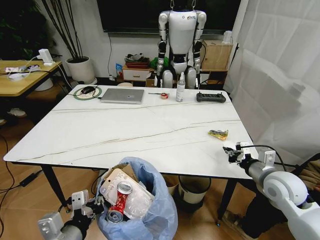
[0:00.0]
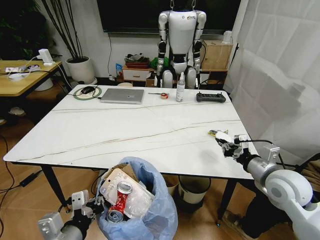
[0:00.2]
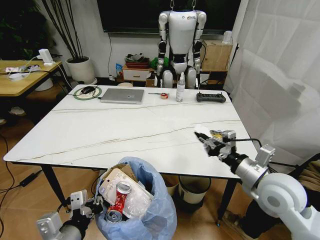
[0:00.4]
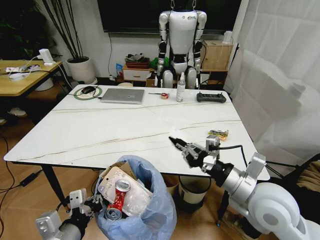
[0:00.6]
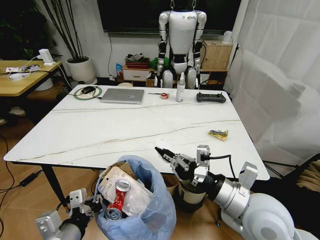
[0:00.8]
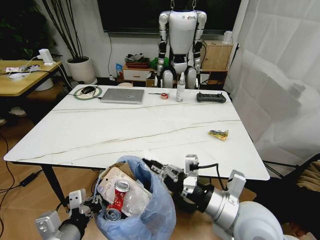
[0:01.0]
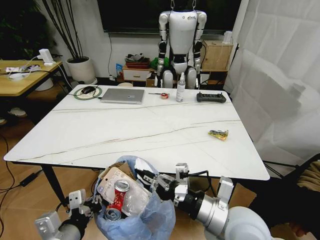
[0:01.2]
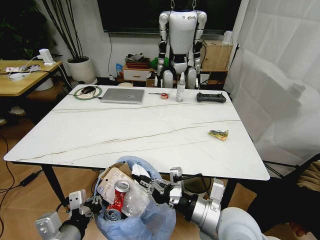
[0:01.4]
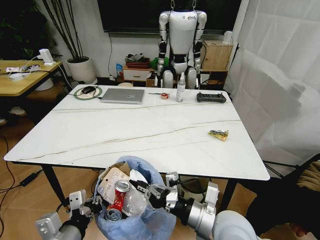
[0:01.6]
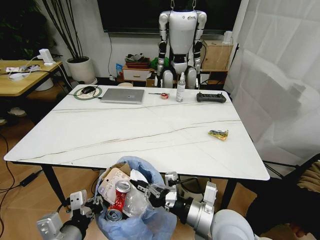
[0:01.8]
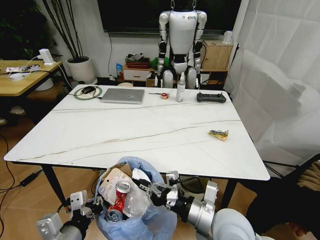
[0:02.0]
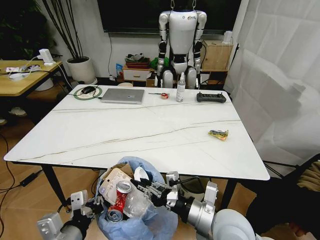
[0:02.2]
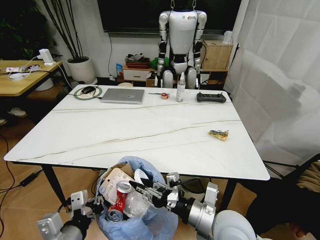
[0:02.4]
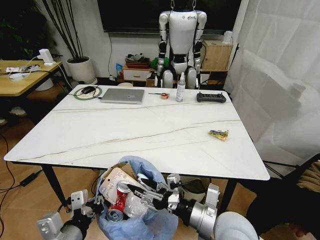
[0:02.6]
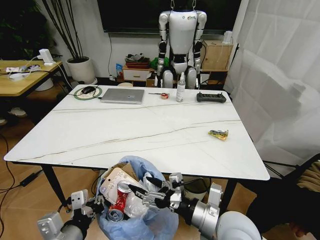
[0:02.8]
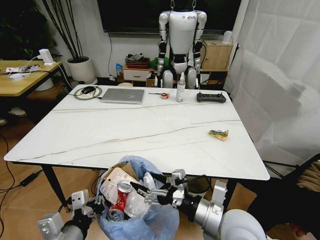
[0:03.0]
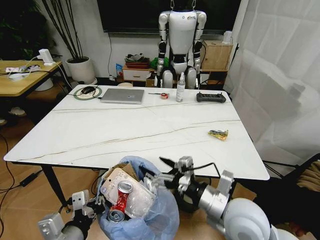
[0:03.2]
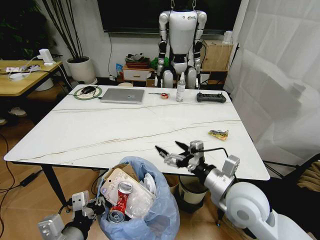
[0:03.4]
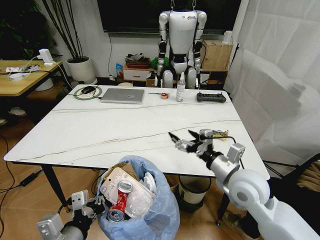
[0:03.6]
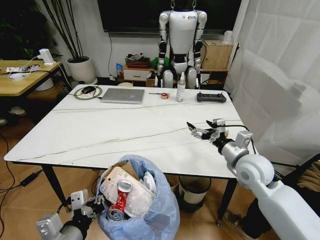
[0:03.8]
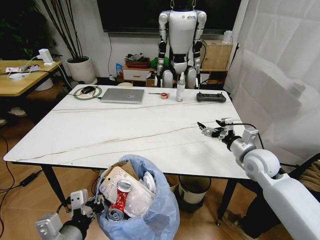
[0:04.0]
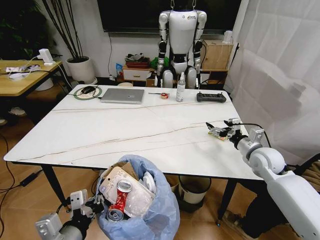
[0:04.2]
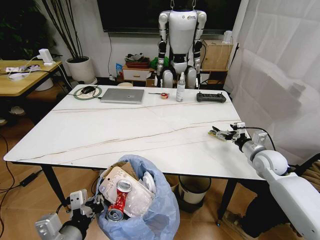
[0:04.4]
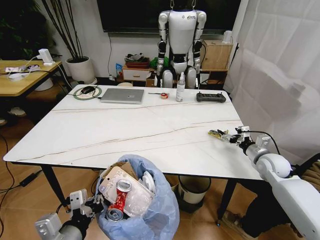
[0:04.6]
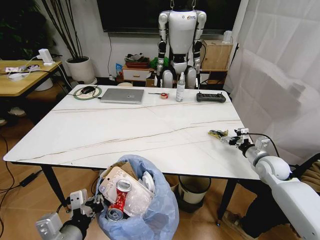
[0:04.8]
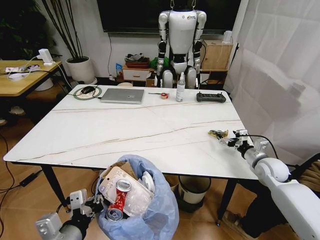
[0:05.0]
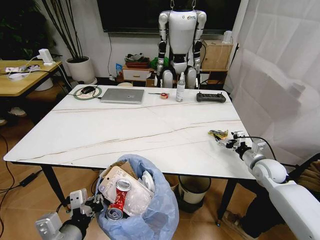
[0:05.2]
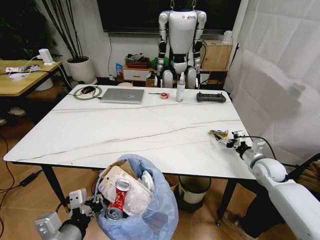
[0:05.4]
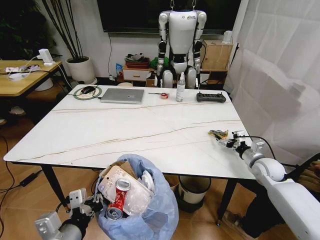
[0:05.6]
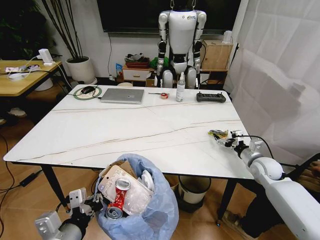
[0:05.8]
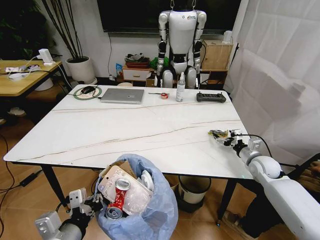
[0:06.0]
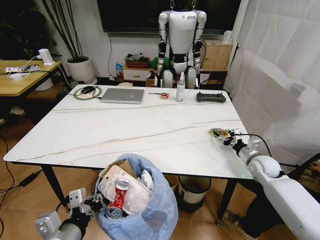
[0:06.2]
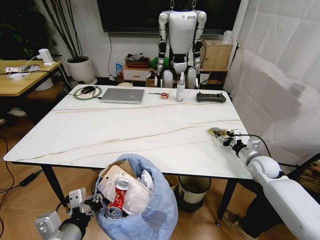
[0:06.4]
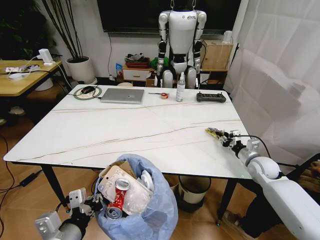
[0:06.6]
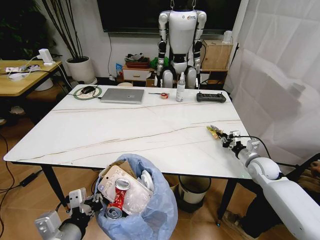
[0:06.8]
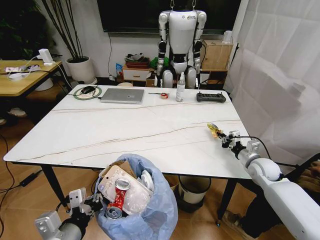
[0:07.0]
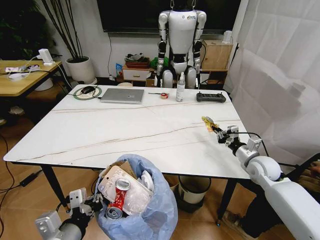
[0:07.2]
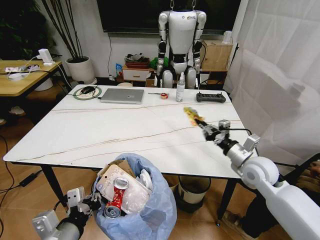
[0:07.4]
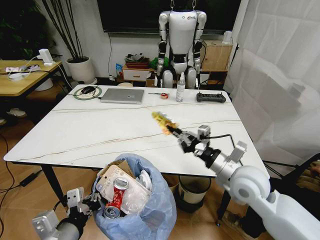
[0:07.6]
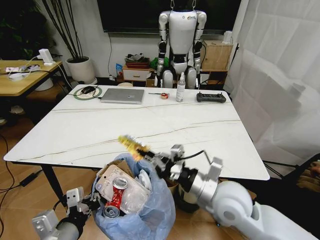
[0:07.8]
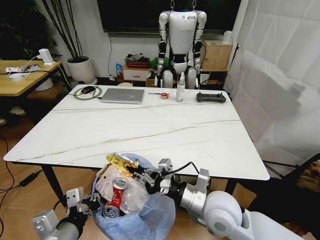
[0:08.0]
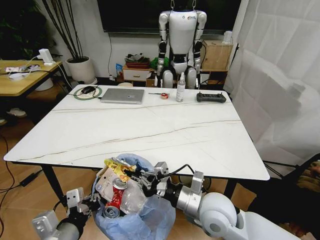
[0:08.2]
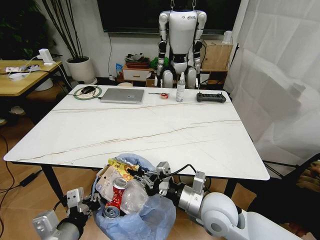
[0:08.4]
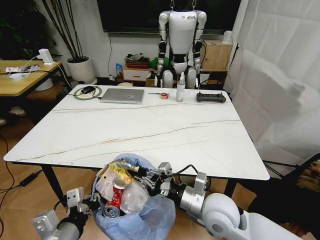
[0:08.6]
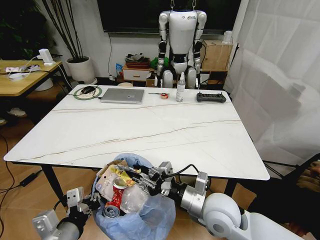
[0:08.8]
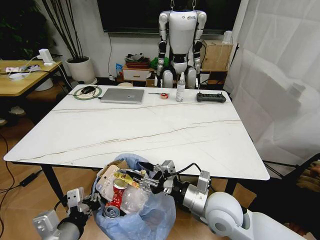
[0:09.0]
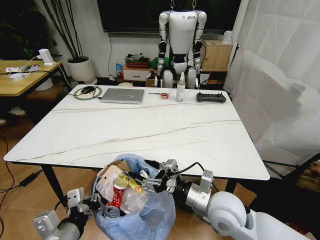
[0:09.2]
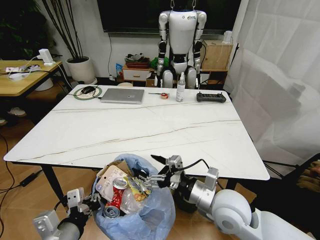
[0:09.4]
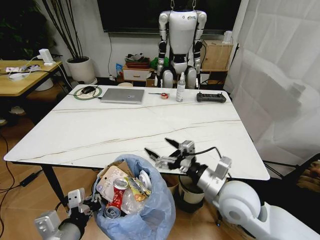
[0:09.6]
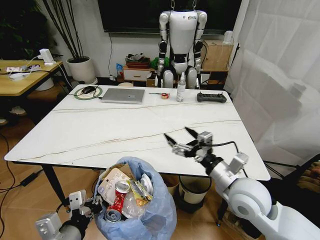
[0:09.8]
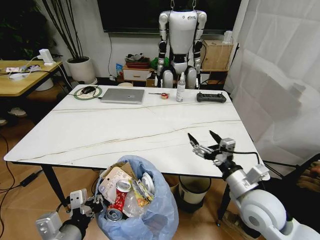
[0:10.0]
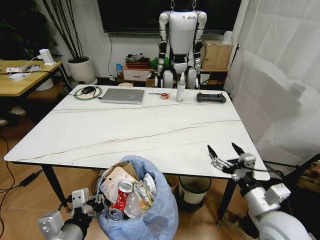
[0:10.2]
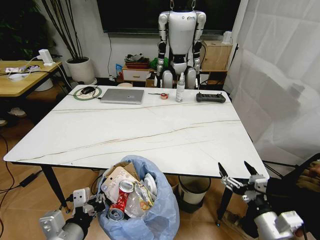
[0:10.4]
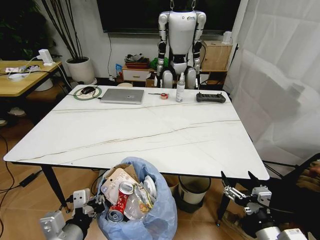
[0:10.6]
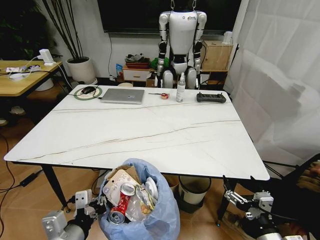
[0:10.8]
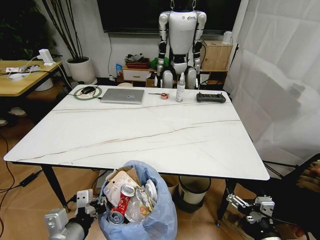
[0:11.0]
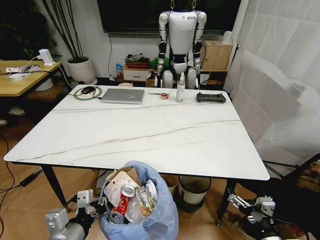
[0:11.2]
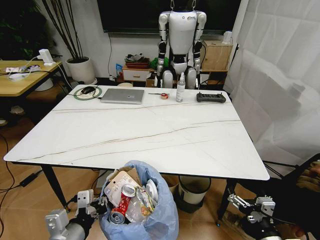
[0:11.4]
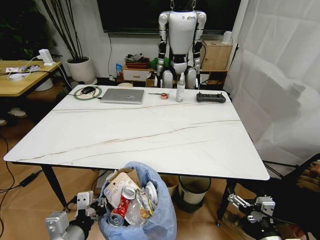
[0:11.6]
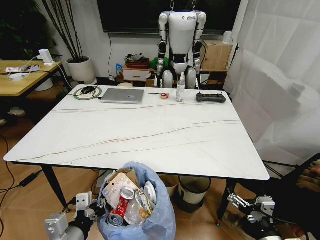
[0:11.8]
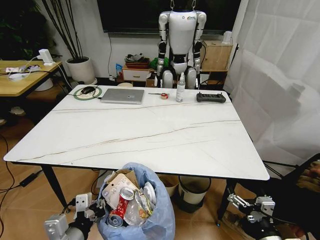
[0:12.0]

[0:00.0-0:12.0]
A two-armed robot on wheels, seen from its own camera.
Task of the whole recording: Pick up the trash bin and place the trash from the table into it.
0:00.0 to 0:01.6: The right gripper shifts about 20 cm to the left and backward.
0:01.6 to 0:03.0: The right gripper opens.
0:03.0 to 0:04.4: The right gripper heads to the right and forward, covering about 30 cm.
0:04.4 to 0:06.0: The grippers stay close to where they were, moving slightly.
0:06.0 to 0:07.6: The right gripper heads to the left, upward and backward, covering roughly 25 cm, and closes up.
0:07.6 to 0:09.0: The right gripper goes roughly 10 cm to the left and backward, and opens.
0:09.0 to 0:10.4: The right gripper moves to the right and backward, some 15 cm, and opens its fingers.
0:10.4 to 0:12.0: The right gripper moves backward and downward, approximately 10 cm.

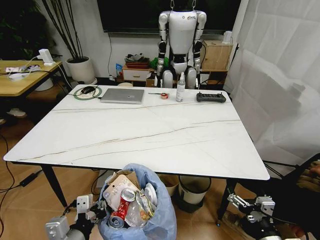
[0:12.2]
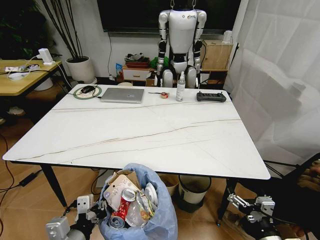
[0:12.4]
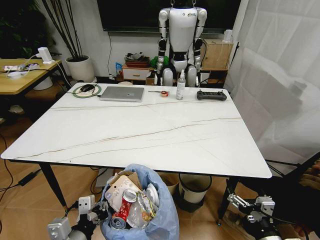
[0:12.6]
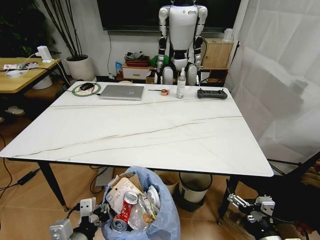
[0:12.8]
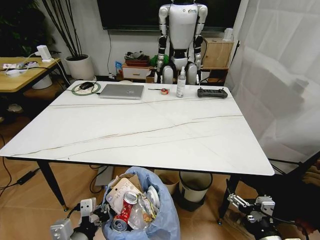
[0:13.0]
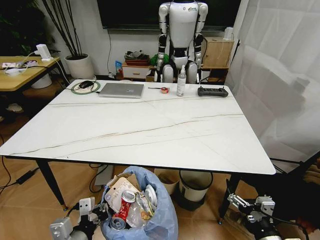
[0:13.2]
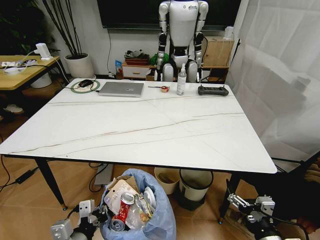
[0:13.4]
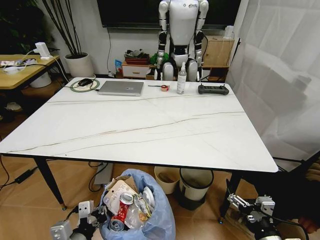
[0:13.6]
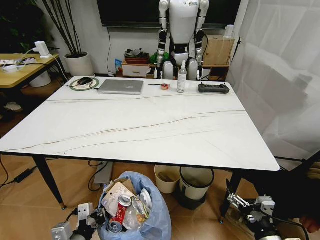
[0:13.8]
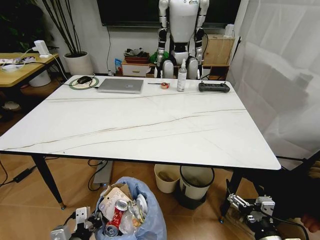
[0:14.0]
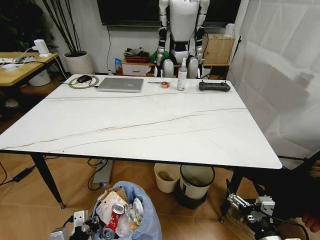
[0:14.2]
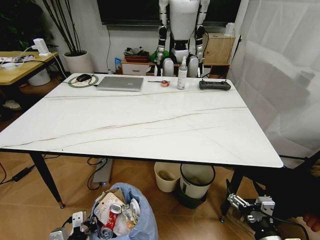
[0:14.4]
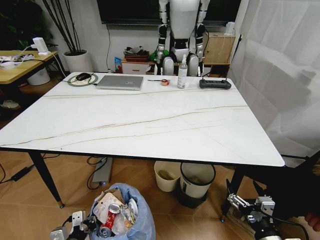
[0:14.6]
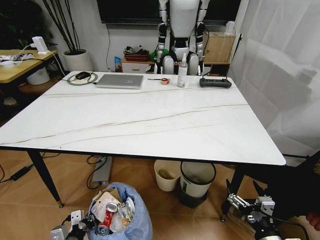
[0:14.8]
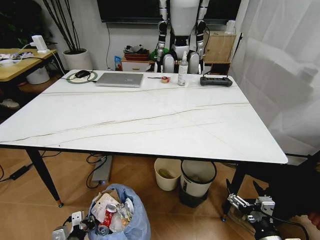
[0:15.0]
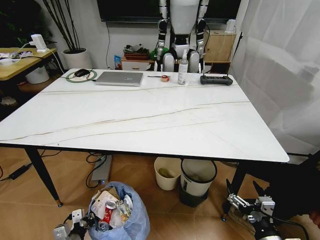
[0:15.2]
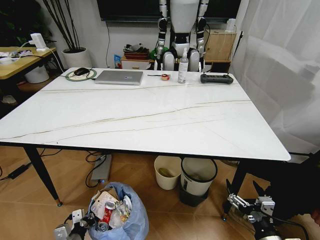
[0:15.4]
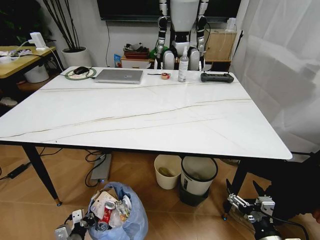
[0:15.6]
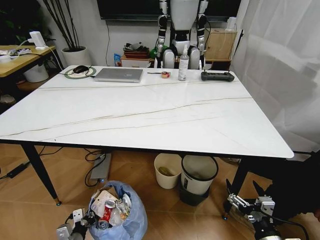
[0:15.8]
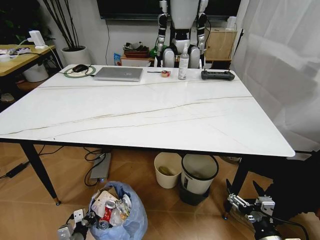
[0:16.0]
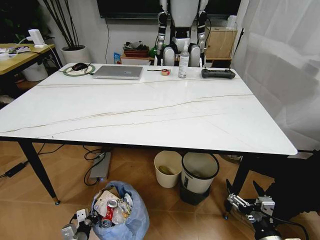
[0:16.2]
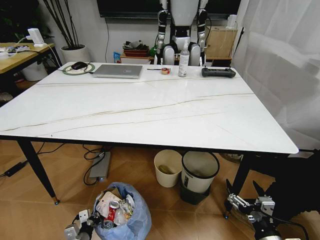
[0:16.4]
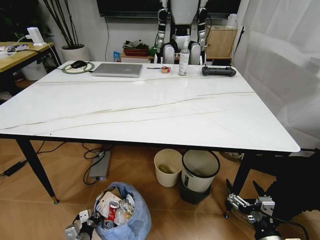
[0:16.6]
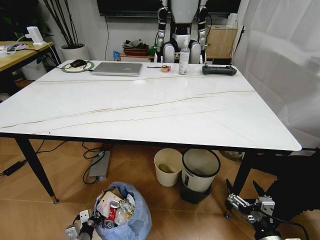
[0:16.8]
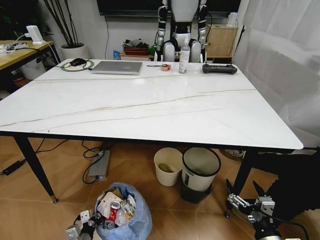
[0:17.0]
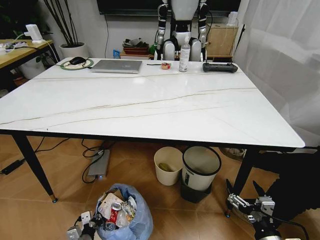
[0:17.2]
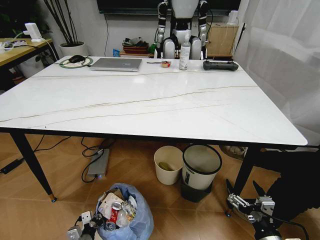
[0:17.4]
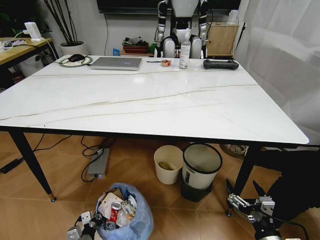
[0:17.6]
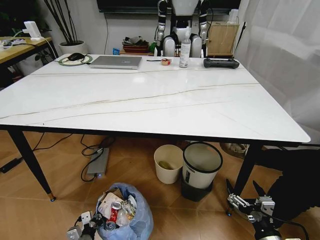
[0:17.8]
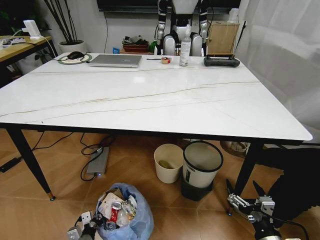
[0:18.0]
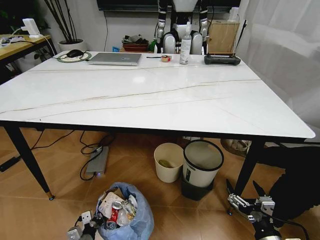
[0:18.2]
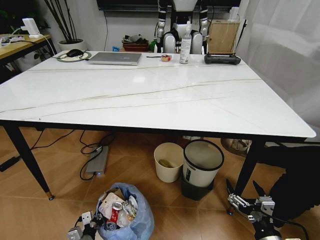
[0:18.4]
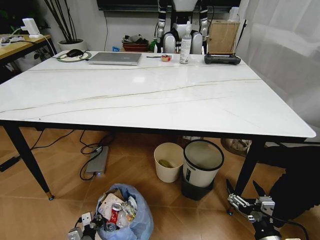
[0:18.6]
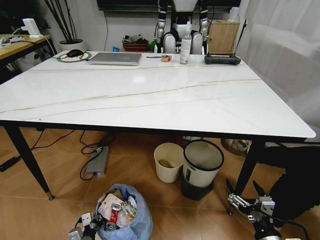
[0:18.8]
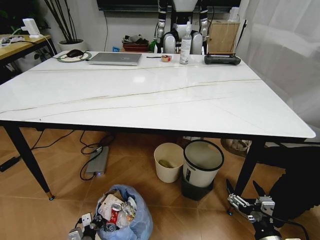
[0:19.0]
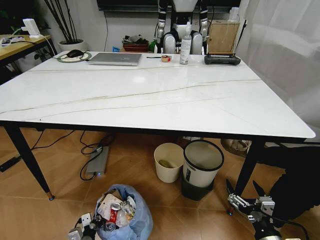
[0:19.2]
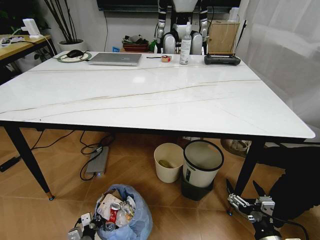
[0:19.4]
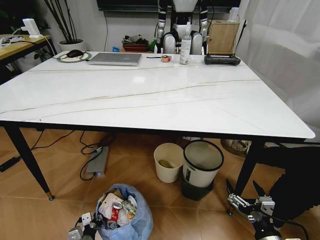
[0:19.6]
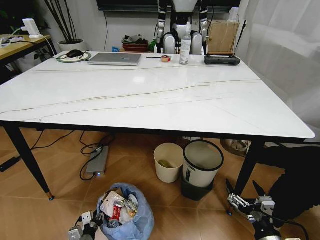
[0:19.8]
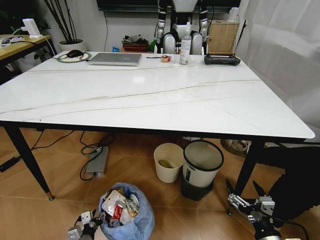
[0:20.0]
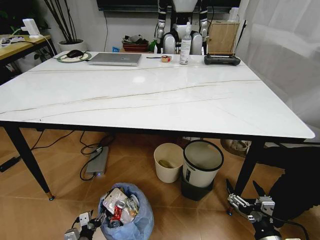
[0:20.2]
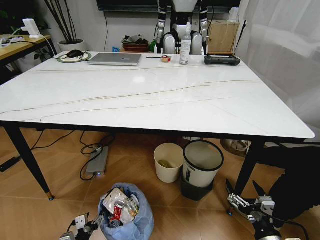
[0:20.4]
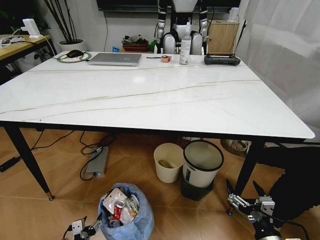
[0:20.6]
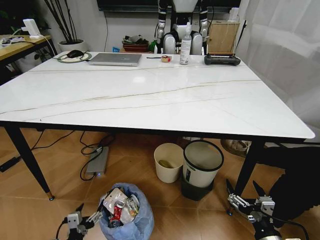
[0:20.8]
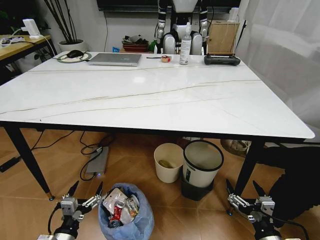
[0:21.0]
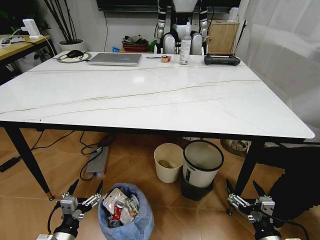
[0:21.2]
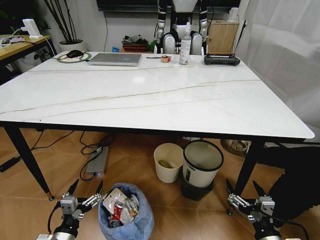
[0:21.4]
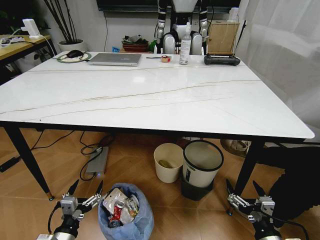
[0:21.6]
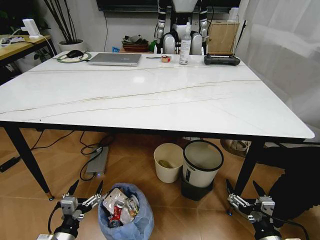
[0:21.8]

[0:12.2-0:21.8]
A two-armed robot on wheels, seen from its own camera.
Task of the whole recording: Pick up the trash bin and place the trash from the table into it.
0:12.2 to 0:13.8: The left gripper heads downward, covering roughly 5 cm.
0:13.8 to 0:15.4: The left gripper heads downward and to the left, covering about 20 cm.
0:15.4 to 0:17.0: The left gripper moves downward, about 5 cm.
0:18.6 to 0:20.2: The left gripper opens its fingers.
0:20.2 to 0:21.8: The left gripper shifts about 15 cm upward.
